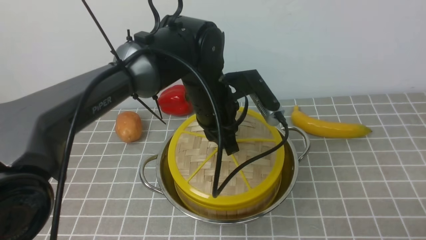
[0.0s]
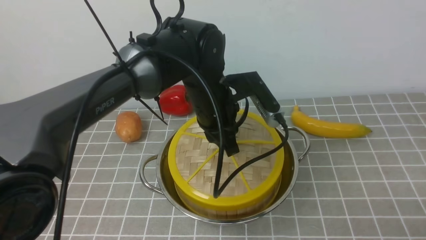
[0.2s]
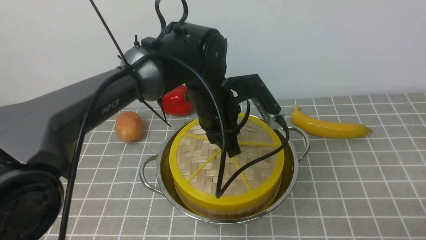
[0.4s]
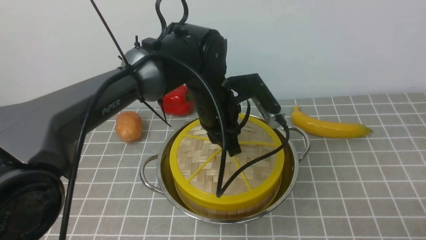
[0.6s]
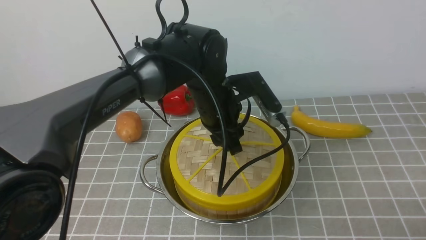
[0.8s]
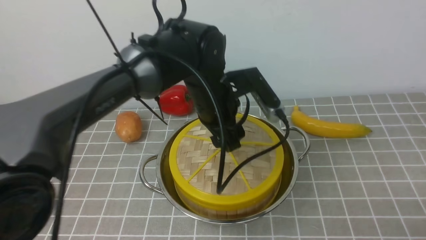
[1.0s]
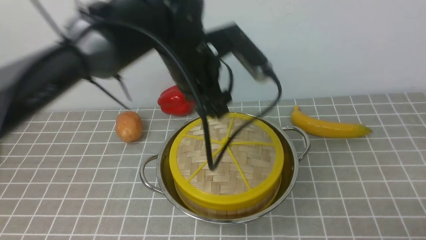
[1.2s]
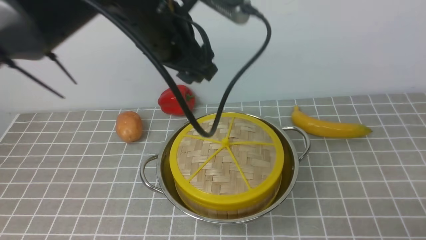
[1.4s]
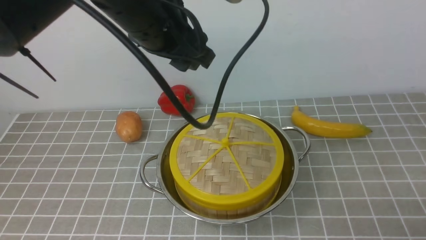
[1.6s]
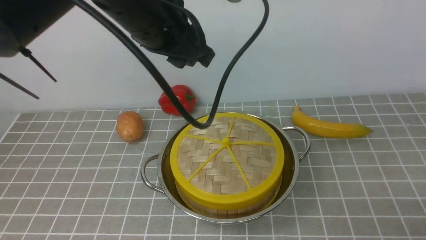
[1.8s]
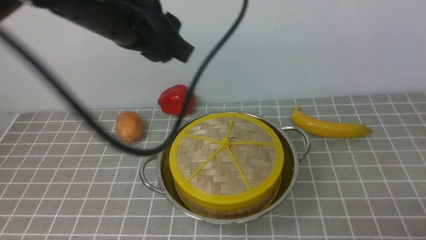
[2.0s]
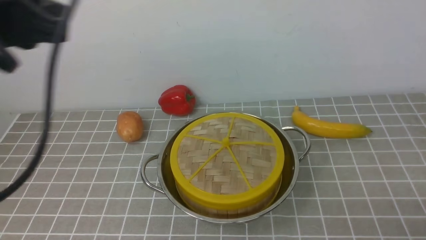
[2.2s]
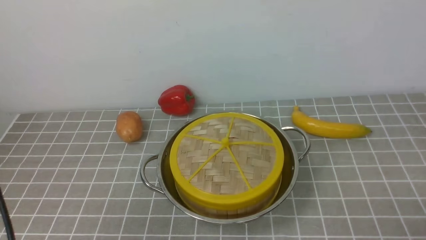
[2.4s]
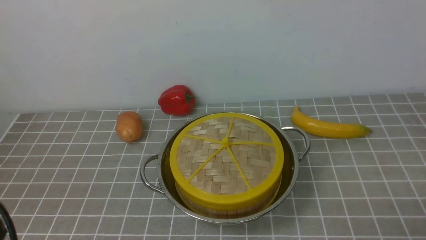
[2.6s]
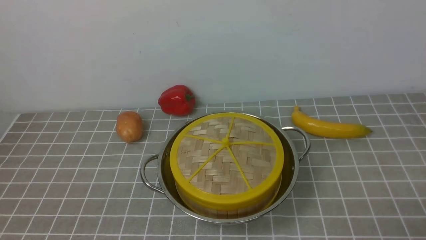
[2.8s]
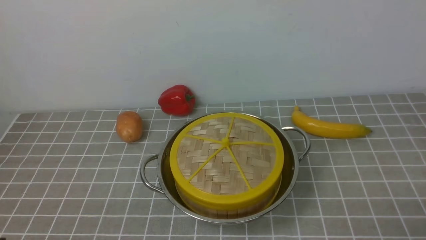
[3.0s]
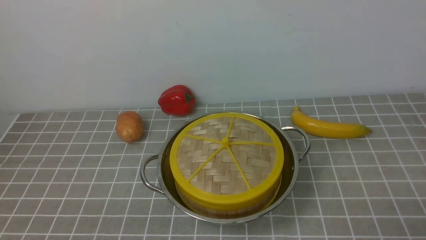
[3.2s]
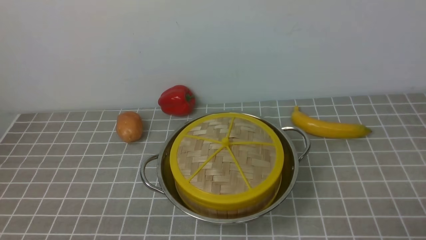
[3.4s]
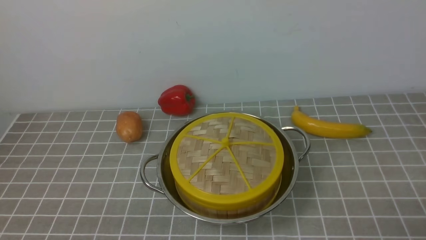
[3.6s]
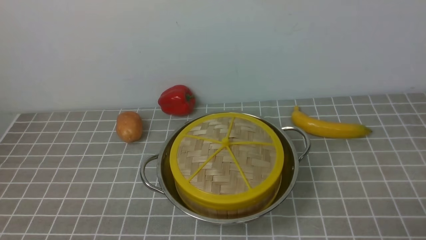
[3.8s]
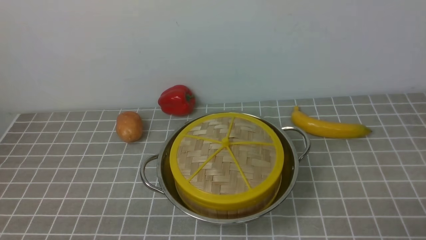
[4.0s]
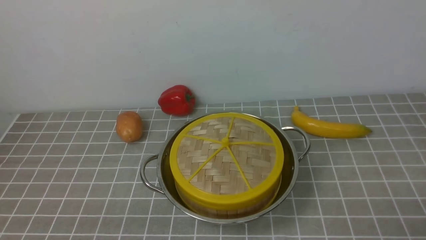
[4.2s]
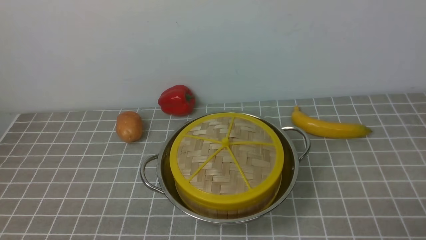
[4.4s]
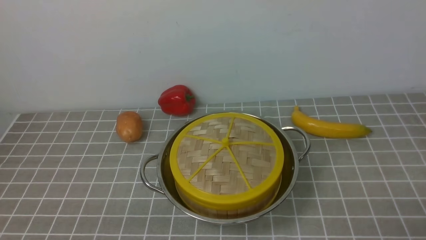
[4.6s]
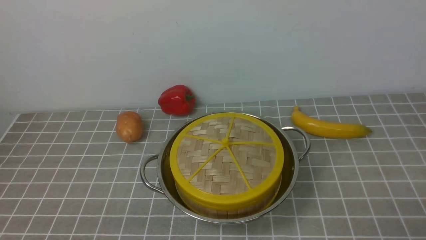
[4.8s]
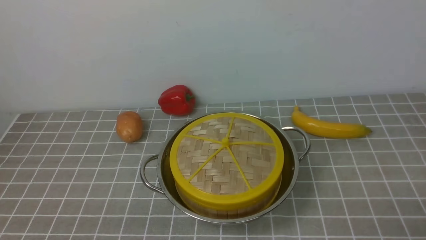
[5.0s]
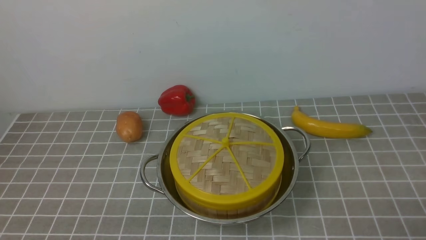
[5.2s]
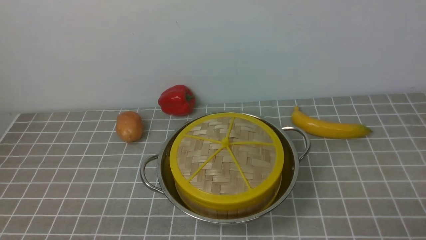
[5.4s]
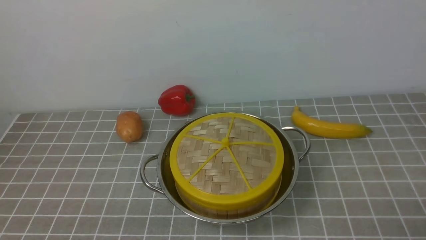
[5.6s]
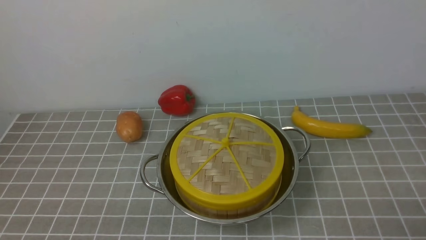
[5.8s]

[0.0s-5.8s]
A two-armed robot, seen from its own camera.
Task of the whole recording: place the steamer in the pot on the grey tablecloth, and put the lid on the steamer.
0.0s to 1.4s: The left gripper moves upward, some 10 cm, and opens.
1.4s to 2.8s: The left gripper shifts about 35 cm backward and to the left, and closes.
4.4s to 5.8s: Both grippers stay about where they are.
